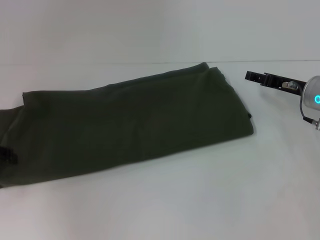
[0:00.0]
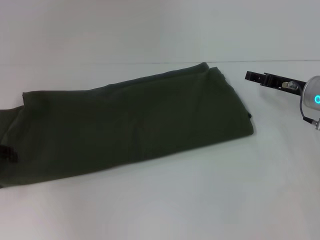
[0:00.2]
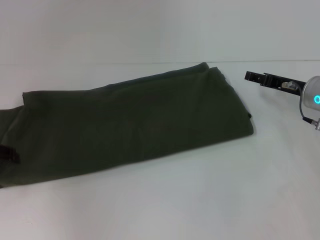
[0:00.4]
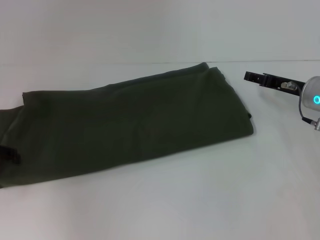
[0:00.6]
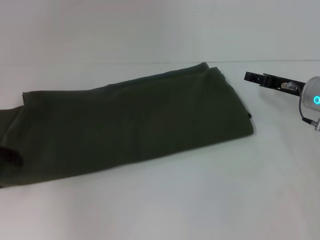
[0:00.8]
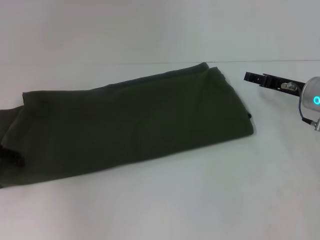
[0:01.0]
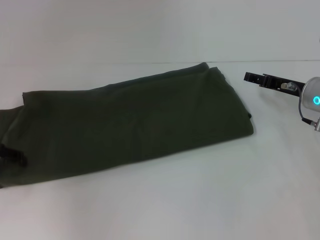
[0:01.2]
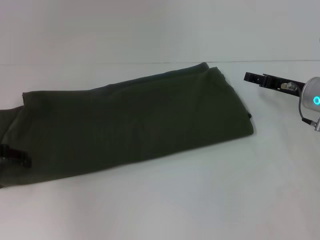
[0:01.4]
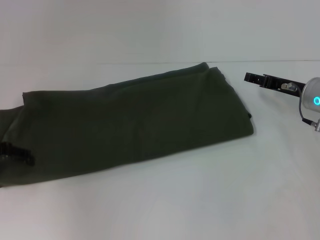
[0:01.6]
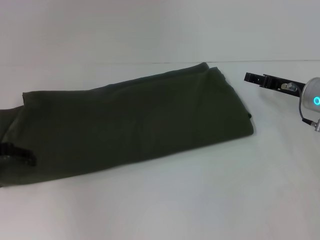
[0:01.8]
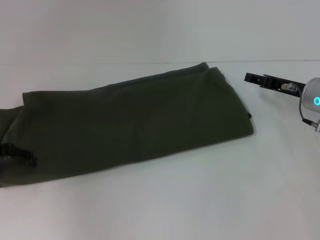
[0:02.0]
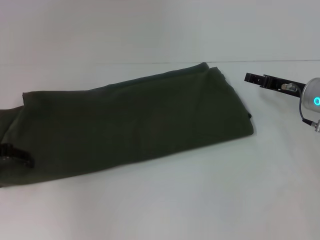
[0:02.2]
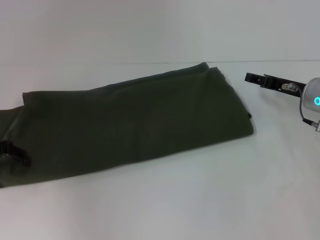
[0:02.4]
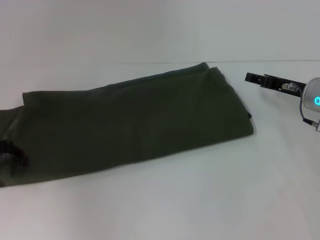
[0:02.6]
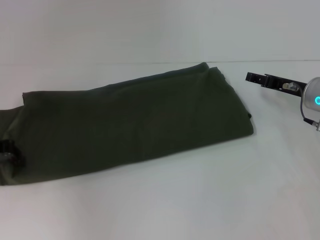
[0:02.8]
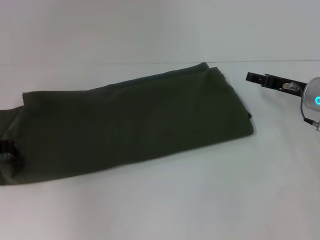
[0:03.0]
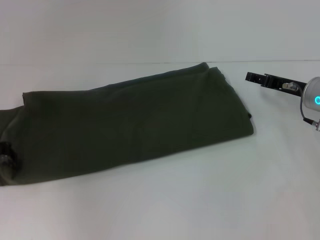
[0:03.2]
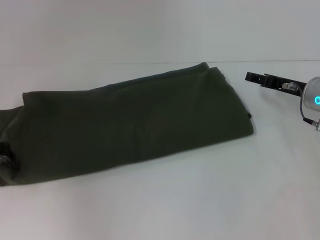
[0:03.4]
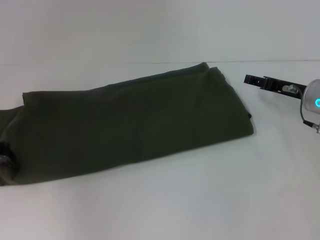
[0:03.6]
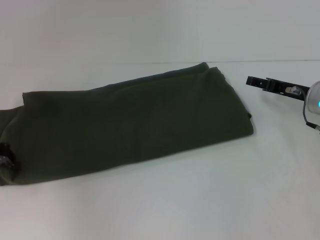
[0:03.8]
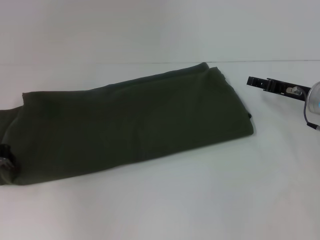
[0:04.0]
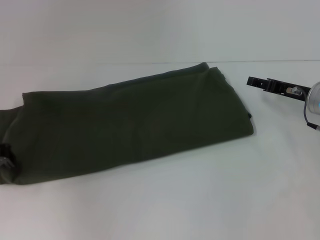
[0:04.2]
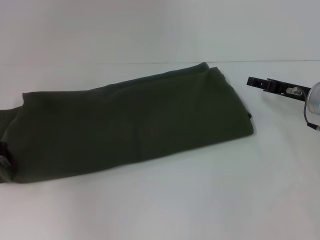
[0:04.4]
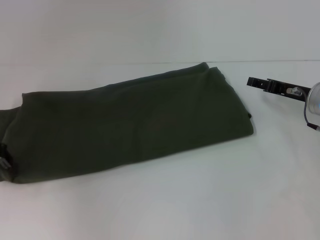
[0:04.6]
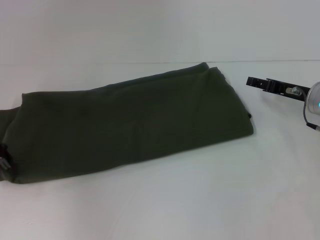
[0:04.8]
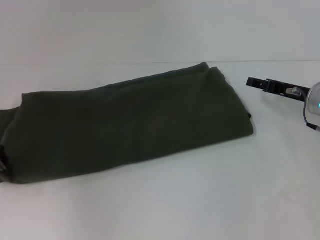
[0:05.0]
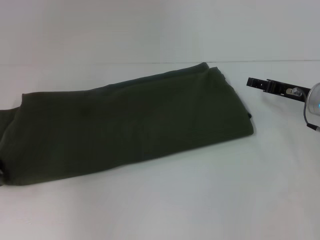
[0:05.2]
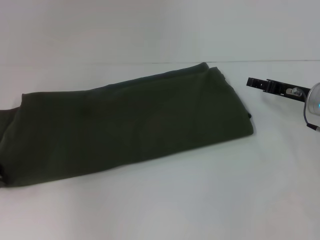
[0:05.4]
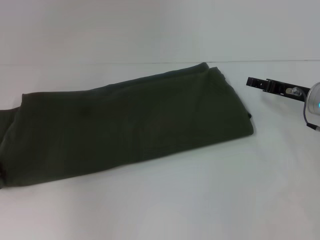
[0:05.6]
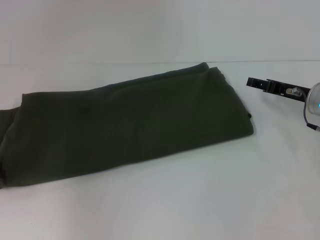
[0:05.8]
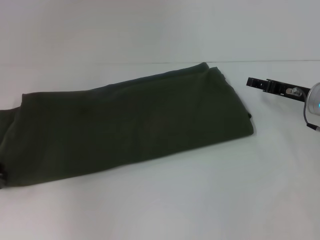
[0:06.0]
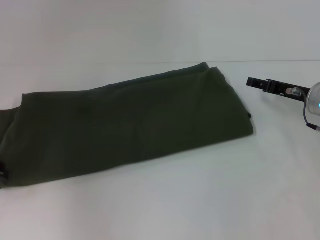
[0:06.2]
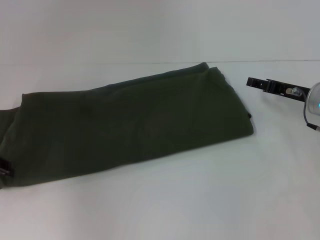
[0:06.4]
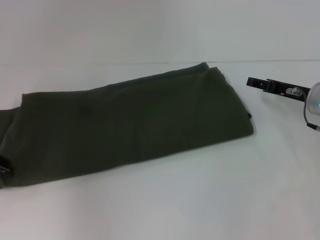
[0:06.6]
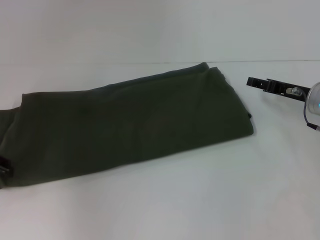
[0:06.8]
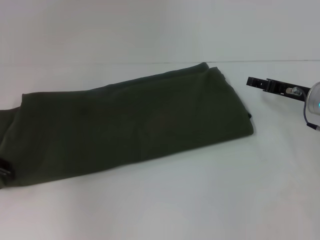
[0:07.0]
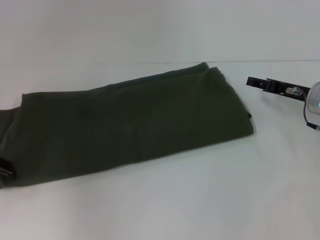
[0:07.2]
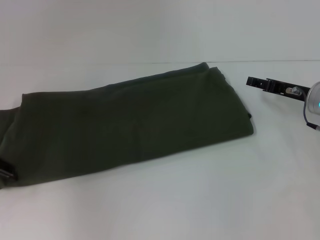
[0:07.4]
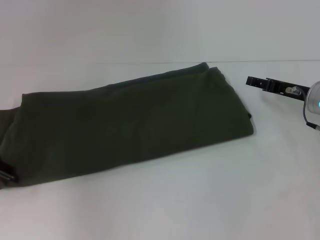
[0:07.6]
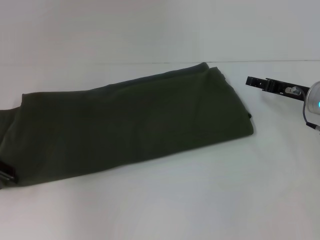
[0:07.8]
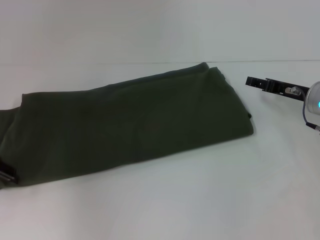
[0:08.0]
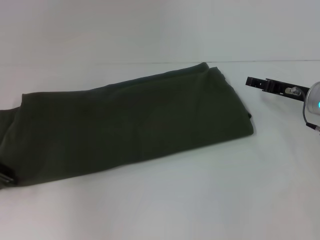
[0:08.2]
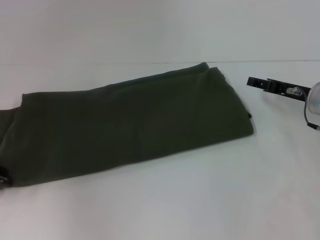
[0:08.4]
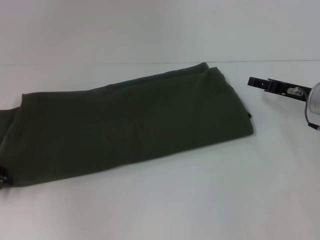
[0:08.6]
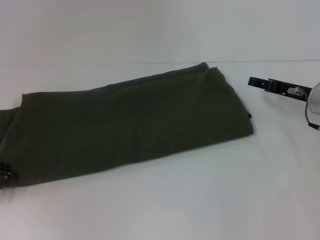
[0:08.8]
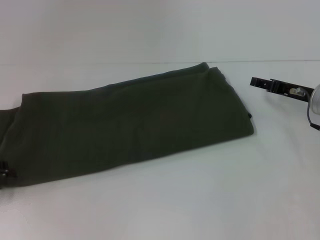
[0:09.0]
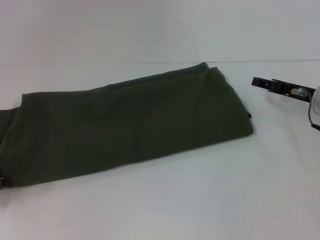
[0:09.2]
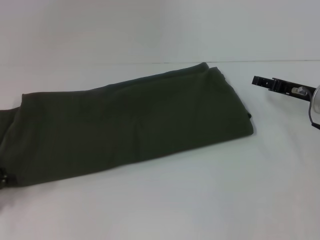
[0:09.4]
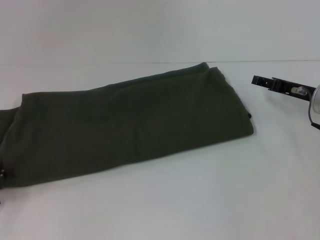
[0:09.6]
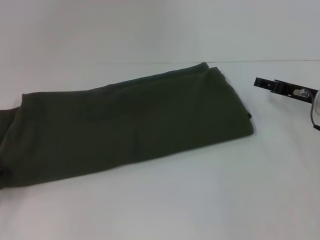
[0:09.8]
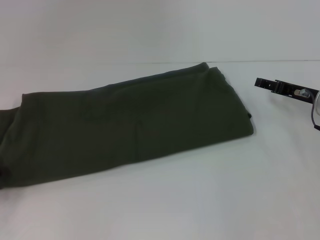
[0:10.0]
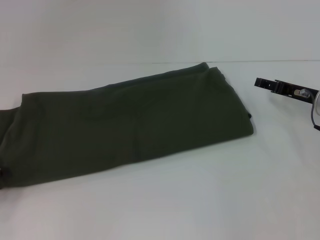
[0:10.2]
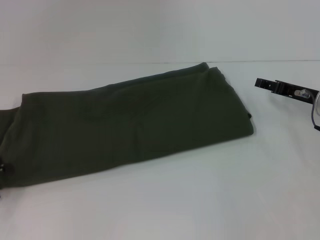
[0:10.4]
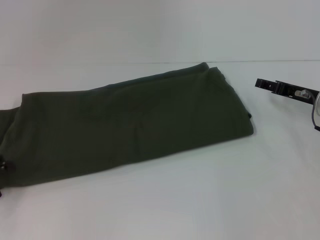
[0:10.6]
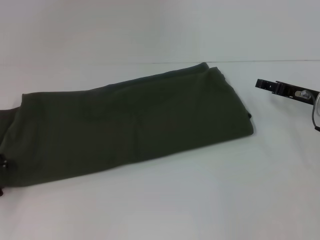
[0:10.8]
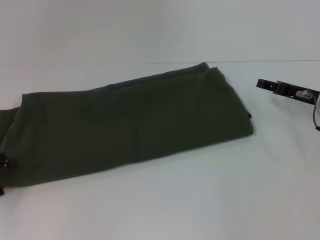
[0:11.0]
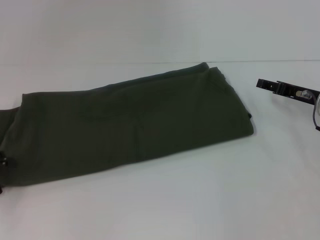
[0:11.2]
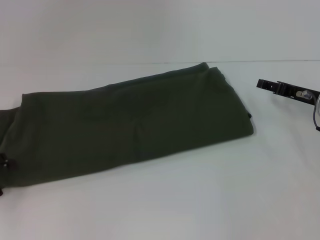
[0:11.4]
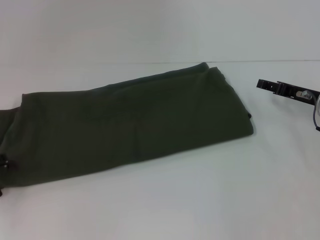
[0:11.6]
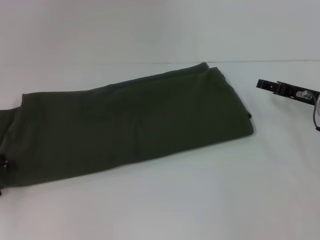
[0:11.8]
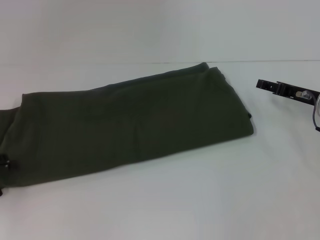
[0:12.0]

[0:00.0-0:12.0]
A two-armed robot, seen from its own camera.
0:00.0 to 0:01.6: The grippers move only a little.
0:03.0 to 0:04.4: Both grippers stay about where they are.
0:04.4 to 0:06.0: The left gripper opens.

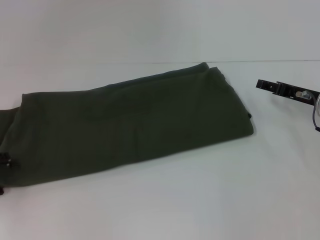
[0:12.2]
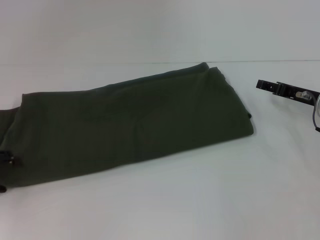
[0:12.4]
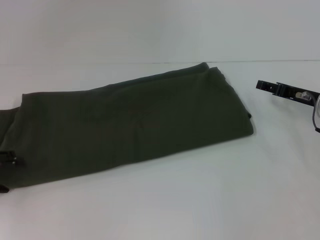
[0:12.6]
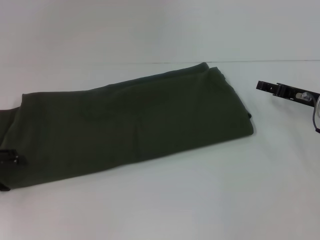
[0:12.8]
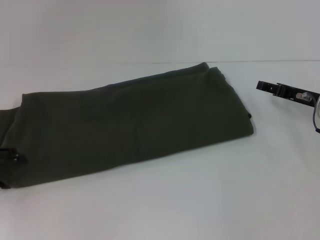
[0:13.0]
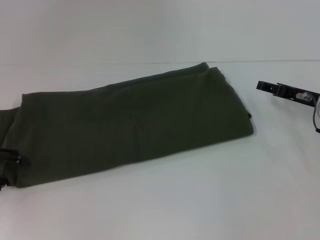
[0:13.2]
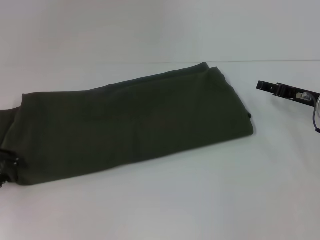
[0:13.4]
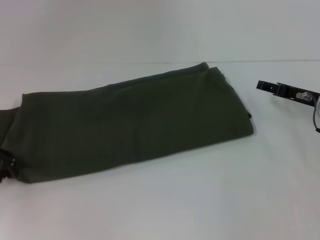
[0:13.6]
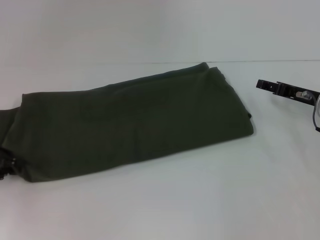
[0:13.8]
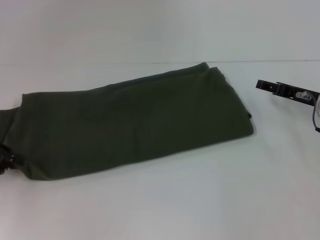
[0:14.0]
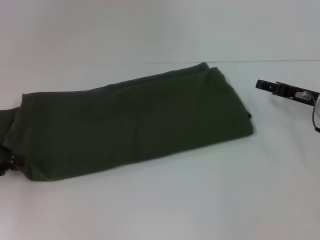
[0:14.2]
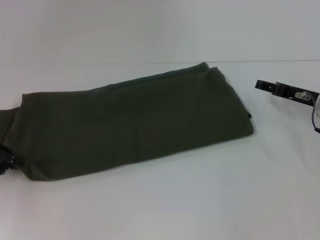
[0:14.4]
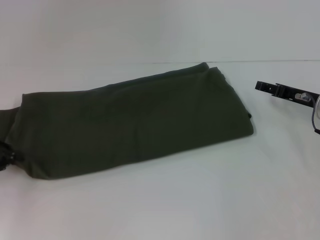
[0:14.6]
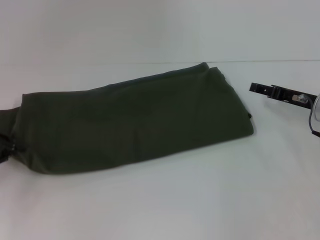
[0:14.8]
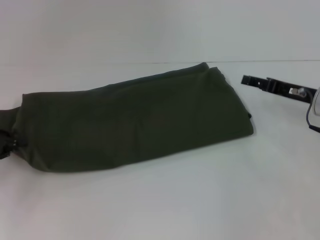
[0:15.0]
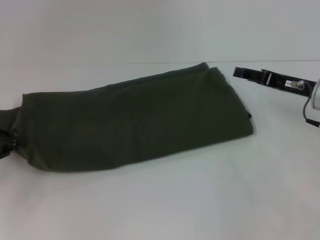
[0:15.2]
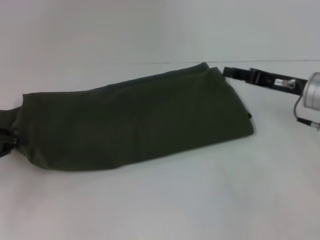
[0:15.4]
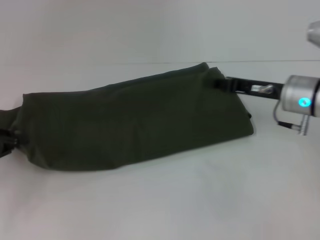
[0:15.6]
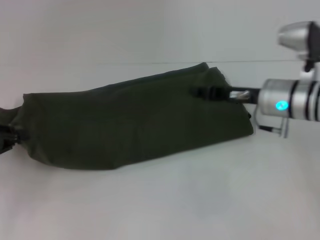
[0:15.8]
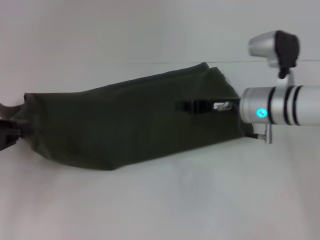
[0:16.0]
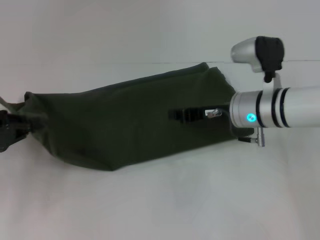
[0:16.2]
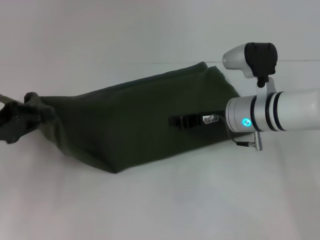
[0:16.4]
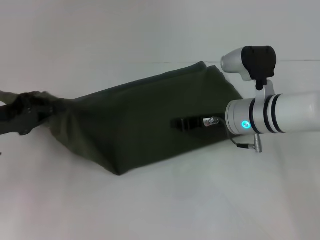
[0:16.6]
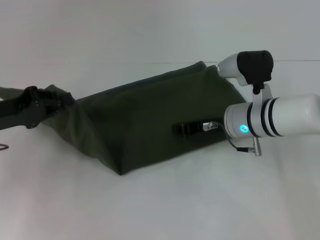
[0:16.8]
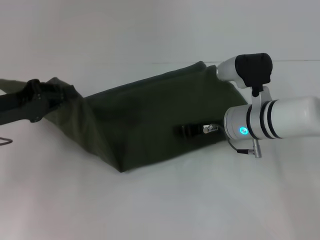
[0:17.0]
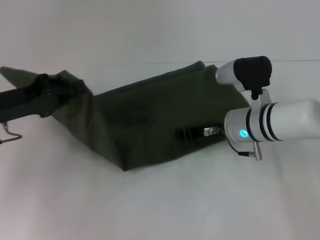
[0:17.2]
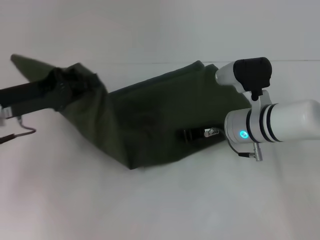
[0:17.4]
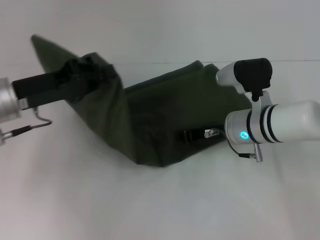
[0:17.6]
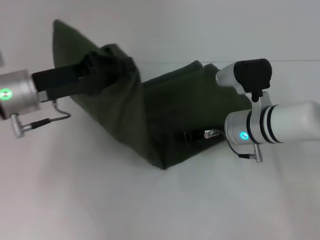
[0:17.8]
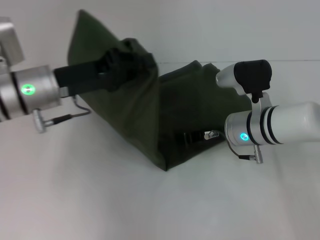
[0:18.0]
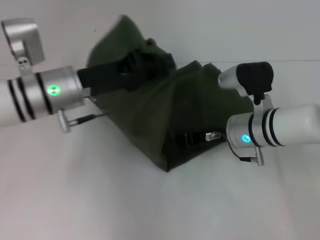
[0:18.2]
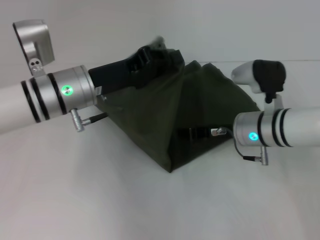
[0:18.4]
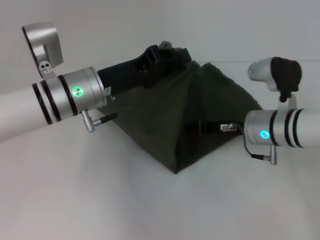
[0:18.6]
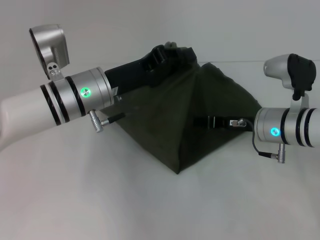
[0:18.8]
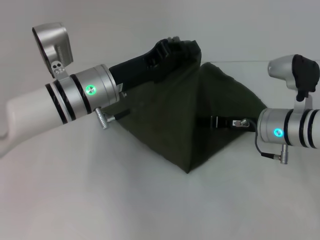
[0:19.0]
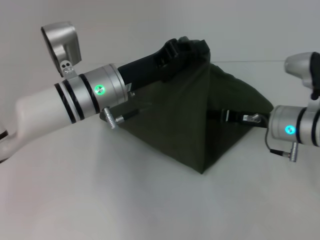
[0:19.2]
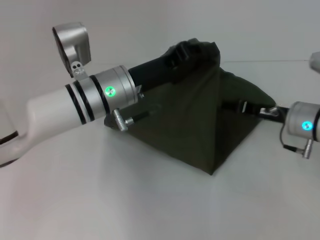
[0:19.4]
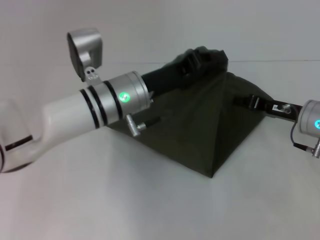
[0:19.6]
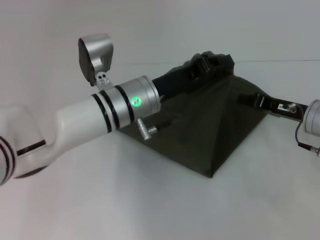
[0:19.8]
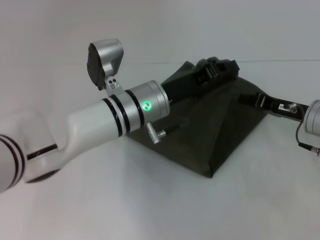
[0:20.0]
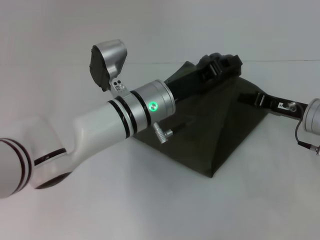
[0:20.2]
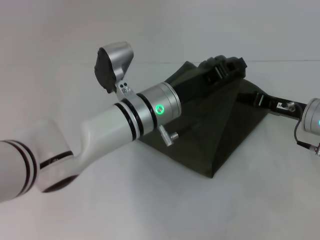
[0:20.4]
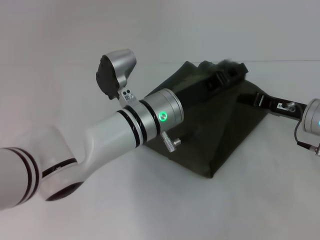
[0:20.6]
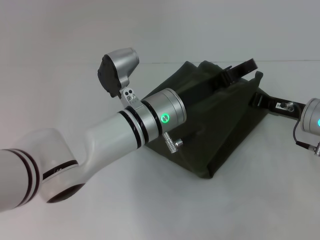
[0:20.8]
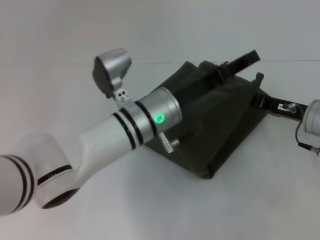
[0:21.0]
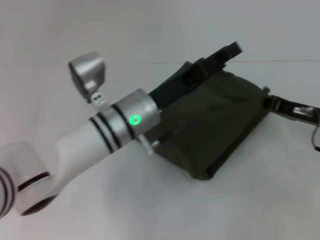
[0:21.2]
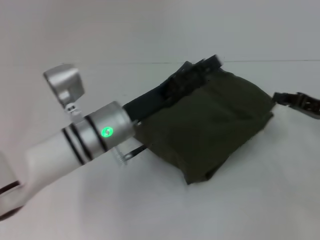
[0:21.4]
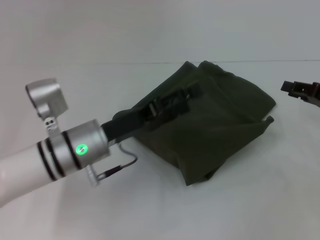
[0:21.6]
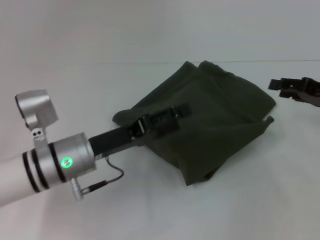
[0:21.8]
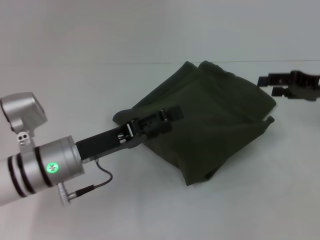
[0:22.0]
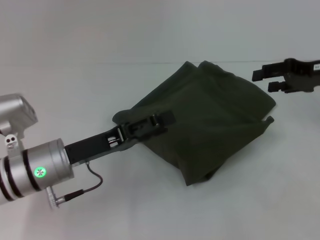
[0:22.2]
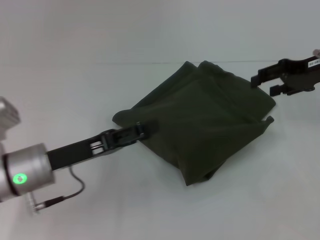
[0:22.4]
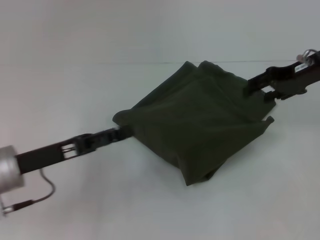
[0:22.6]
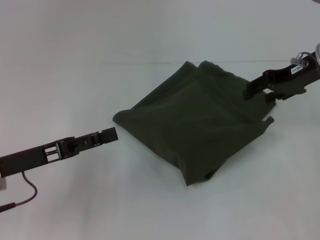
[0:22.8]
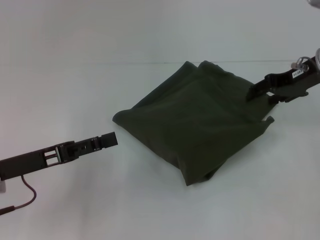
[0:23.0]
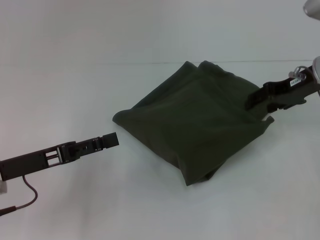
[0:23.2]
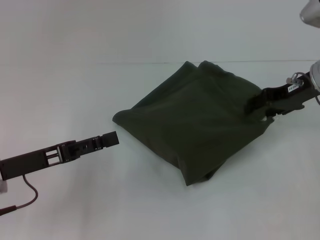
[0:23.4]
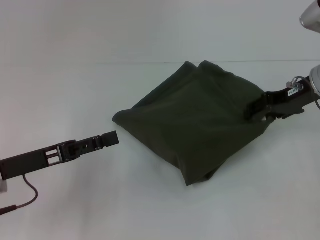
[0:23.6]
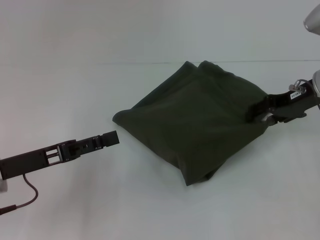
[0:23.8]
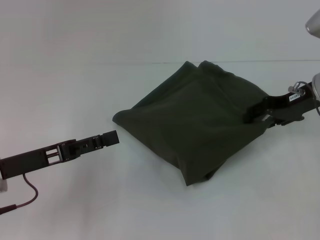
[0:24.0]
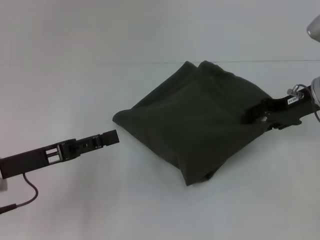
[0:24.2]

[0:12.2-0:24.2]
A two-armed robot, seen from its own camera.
Step, 0:12.2 to 0:21.4: Fold the clothes with your left hand.
0:12.2 to 0:13.8: The left gripper closes its fingers.
0:13.8 to 0:15.2: The left gripper closes its fingers.
0:15.2 to 0:16.6: The left gripper is displaced to the right by roughly 5 cm. Meanwhile the right gripper heads to the left, covering roughly 15 cm, and closes up.
0:16.6 to 0:18.2: The left gripper heads to the right, covering some 15 cm.
0:18.2 to 0:19.8: Both grippers travel together to the right, about 10 cm.
0:19.8 to 0:21.2: The left gripper opens up.
0:21.2 to 0:22.6: The left gripper travels to the left and backward by about 20 cm, and opens; the right gripper heads upward and forward, covering roughly 15 cm, and opens.
0:22.6 to 0:24.2: The right gripper is displaced downward by approximately 5 cm.
